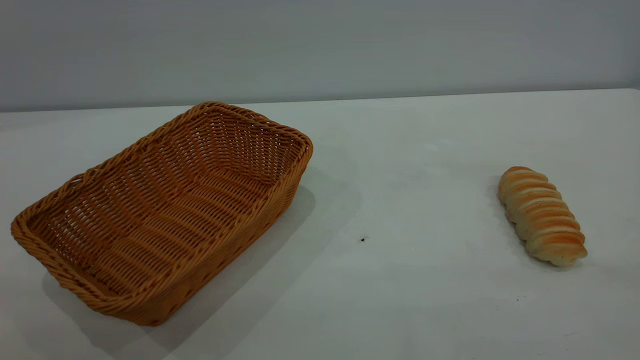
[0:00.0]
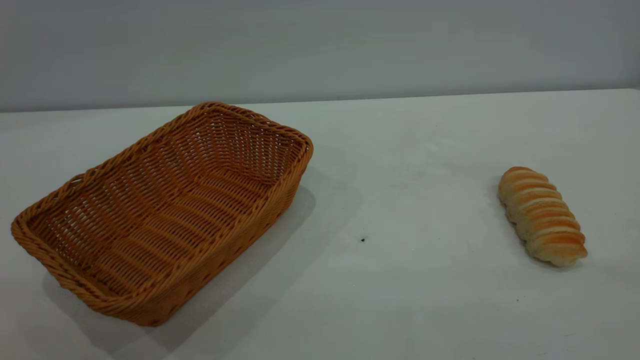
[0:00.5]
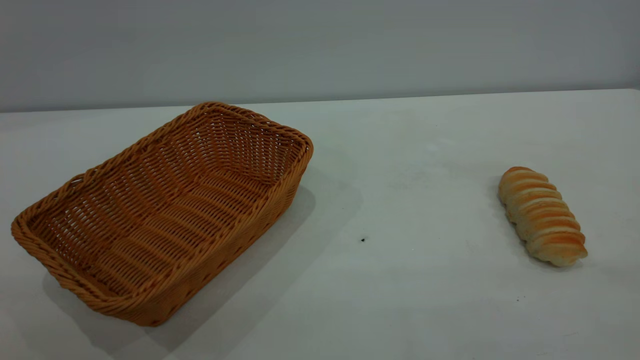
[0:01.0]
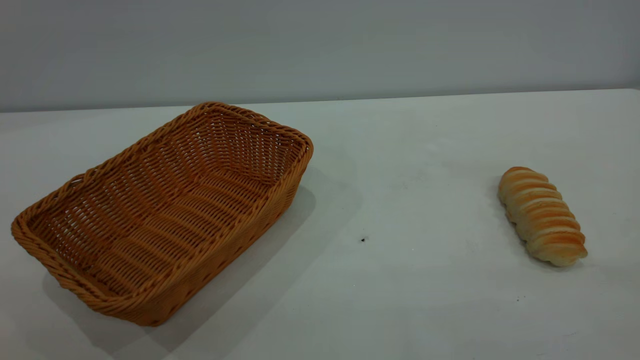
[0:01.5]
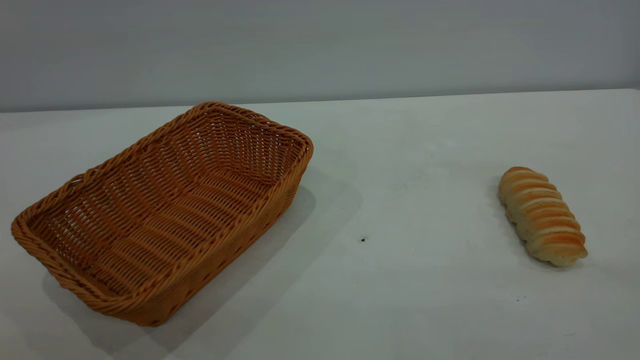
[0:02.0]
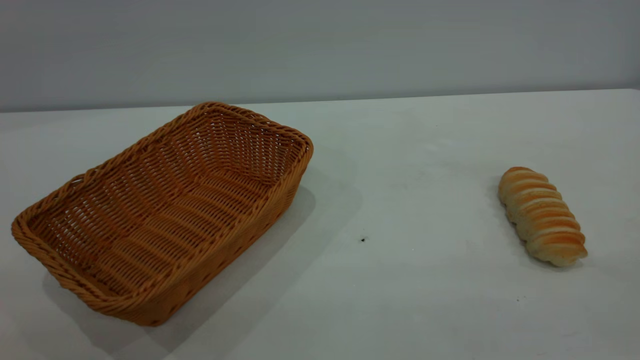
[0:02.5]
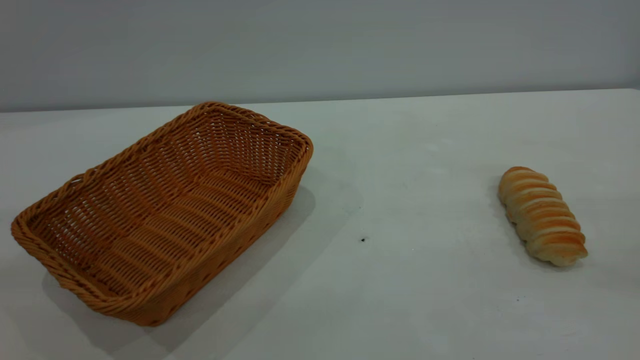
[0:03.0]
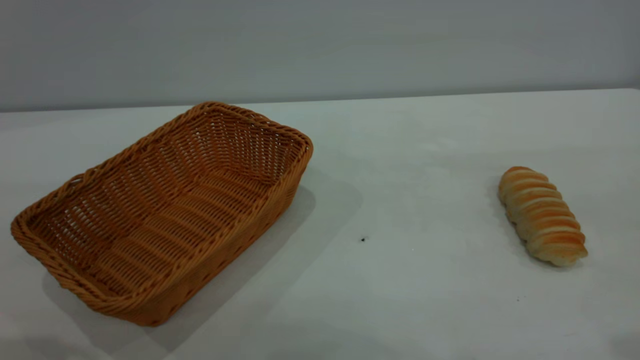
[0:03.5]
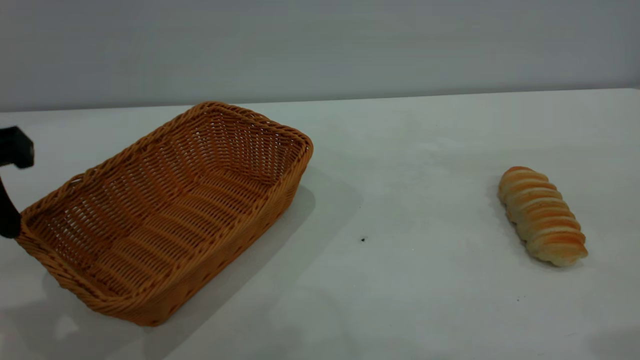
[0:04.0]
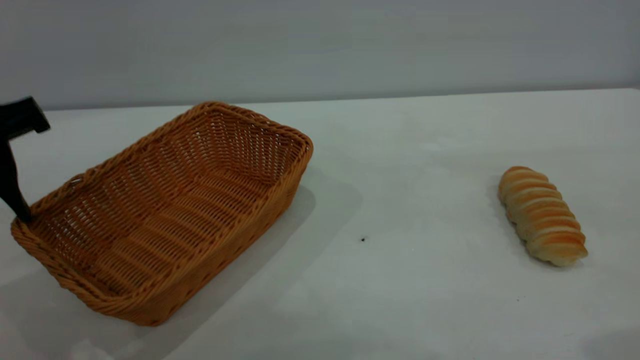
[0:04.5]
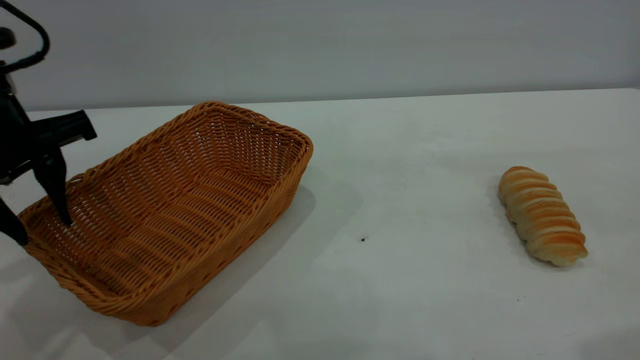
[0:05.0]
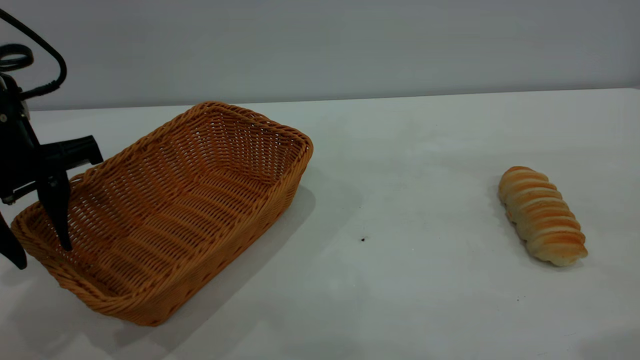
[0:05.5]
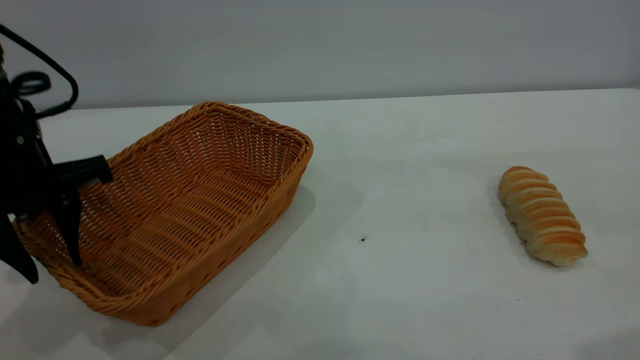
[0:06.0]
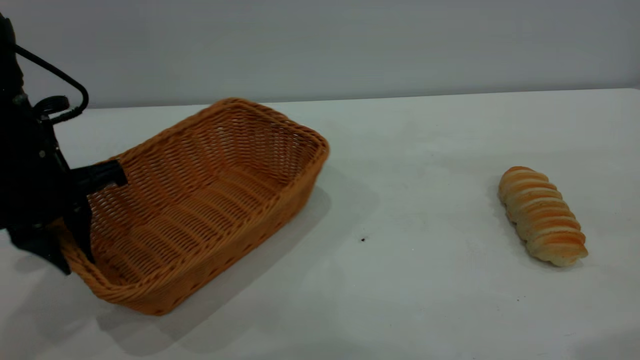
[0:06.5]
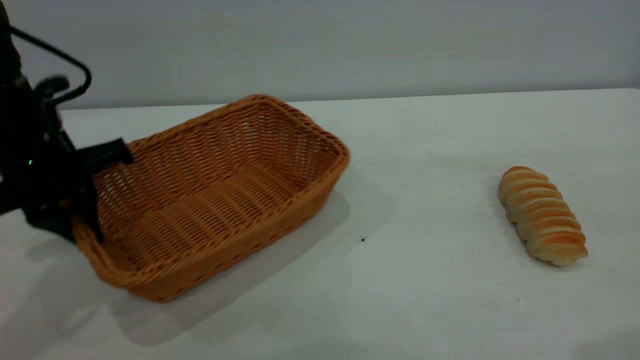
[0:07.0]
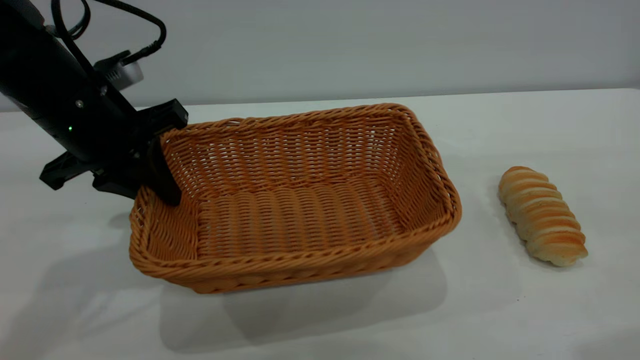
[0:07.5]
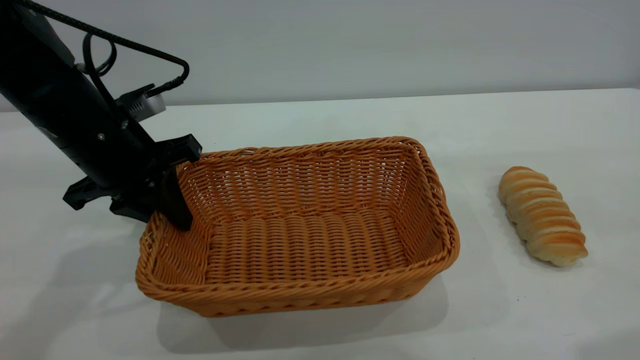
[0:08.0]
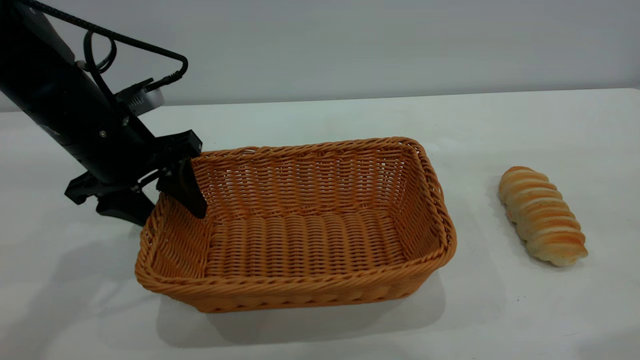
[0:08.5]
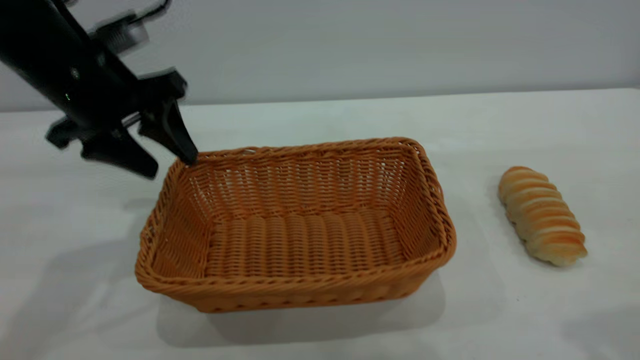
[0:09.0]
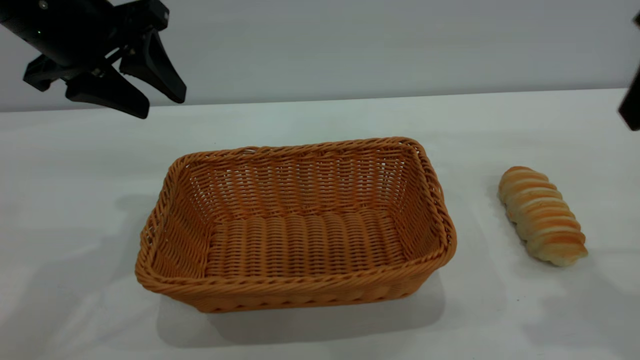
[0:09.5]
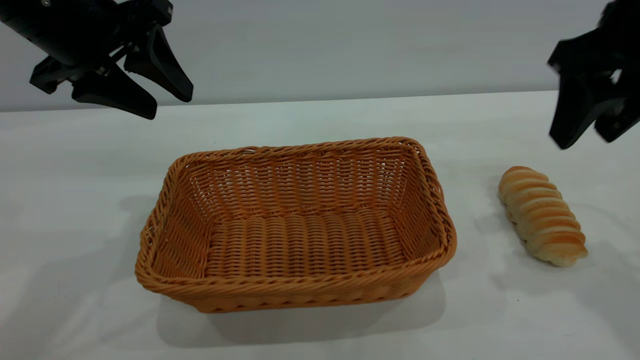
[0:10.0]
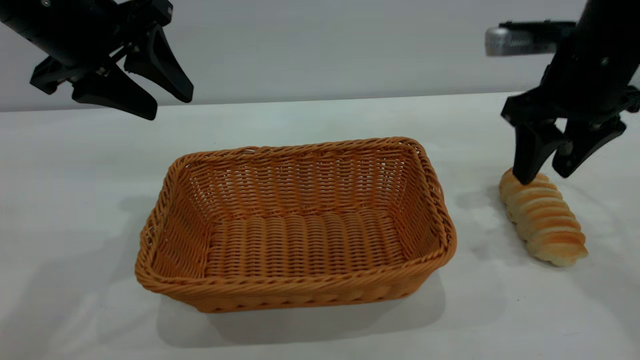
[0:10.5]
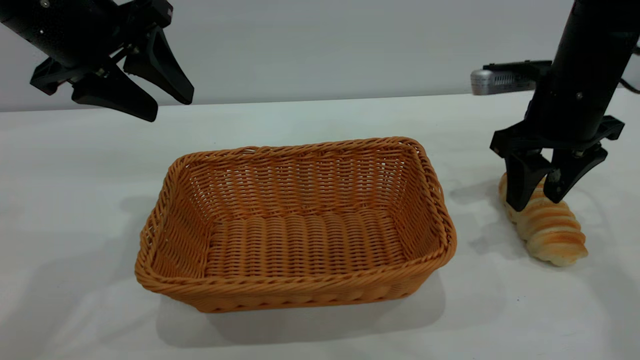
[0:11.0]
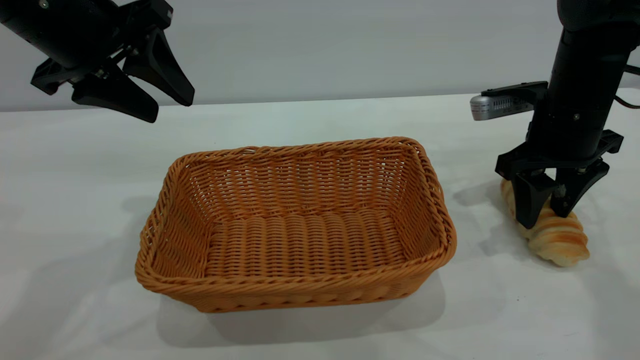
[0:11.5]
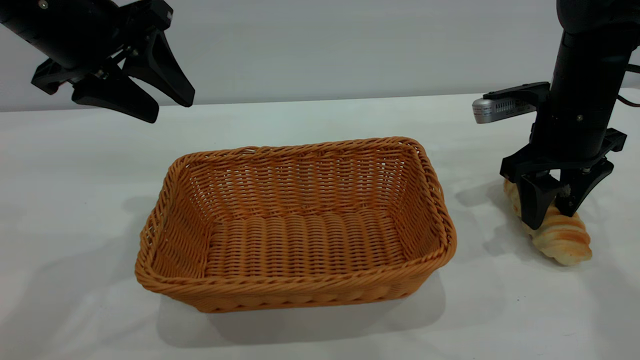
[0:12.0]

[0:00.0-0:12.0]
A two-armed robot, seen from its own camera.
Task of the whole recording: One hand grasps the yellow basket and places it in the middle of the table, while the other hand picks up the long bread and puts it into the yellow basket.
Step, 0:00.0 to 0:09.0: Move the basket to the center of view.
0:02.0 to 0:04.0: The left gripper shifts approximately 25 cm forward and downward.
0:04.0 to 0:06.0: The left gripper heads forward and downward, covering about 10 cm.
0:06.0 to 0:08.0: The left gripper moves some 5 cm, and closes its fingers.
0:08.0 to 0:10.0: The left gripper travels upward by some 10 cm, and opens its fingers, while the right gripper shifts roughly 20 cm forward and downward.
0:10.0 to 0:12.0: The right gripper is displaced downward and forward by some 15 cm.

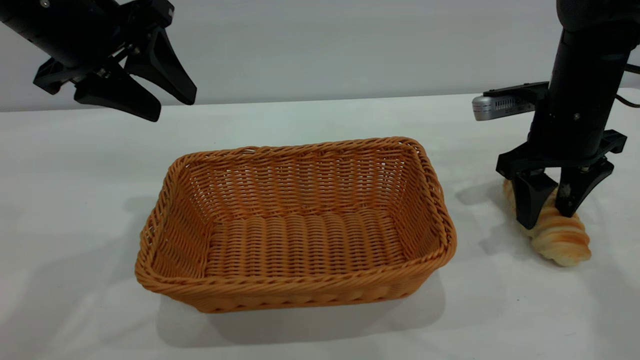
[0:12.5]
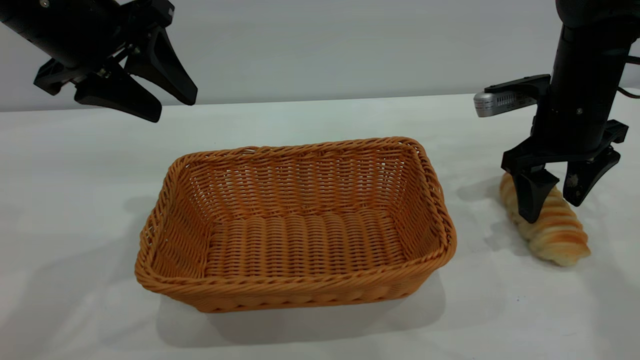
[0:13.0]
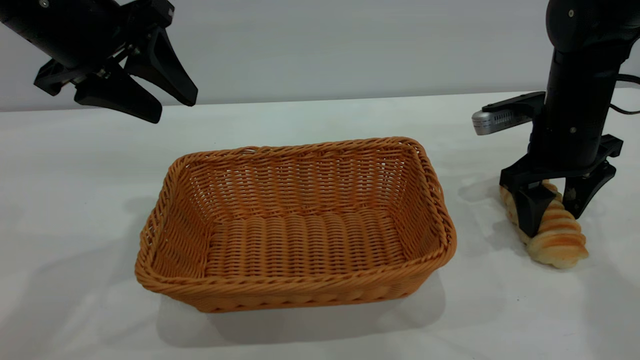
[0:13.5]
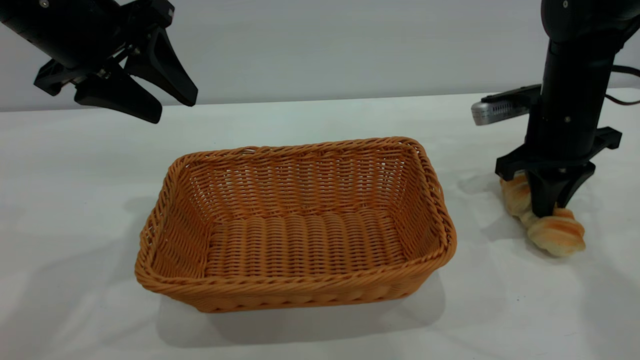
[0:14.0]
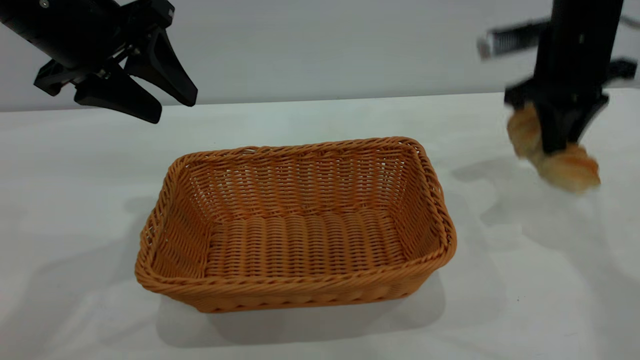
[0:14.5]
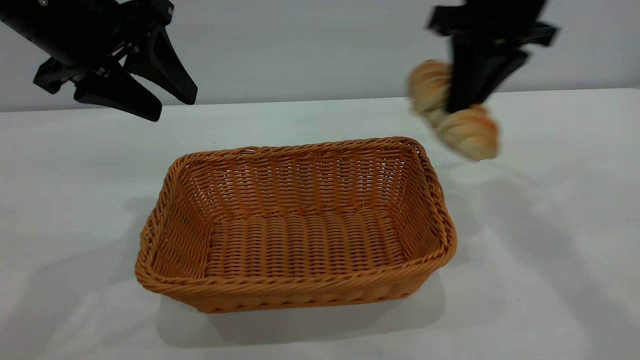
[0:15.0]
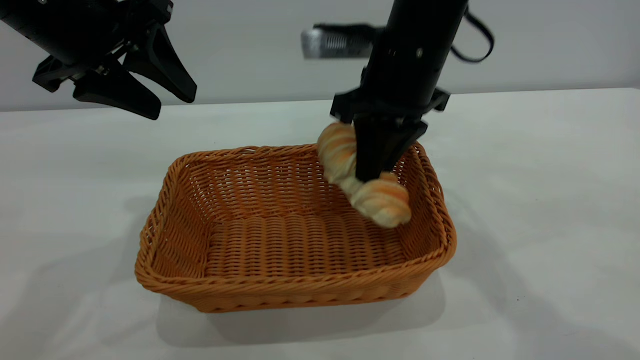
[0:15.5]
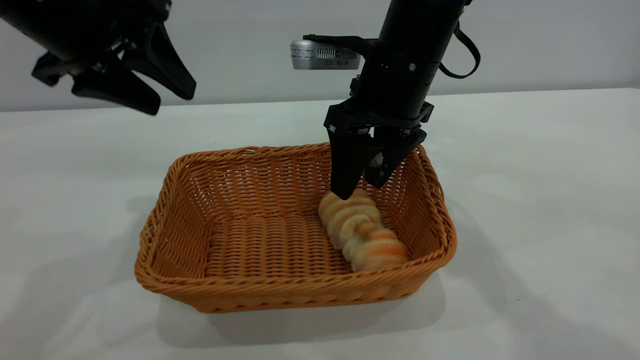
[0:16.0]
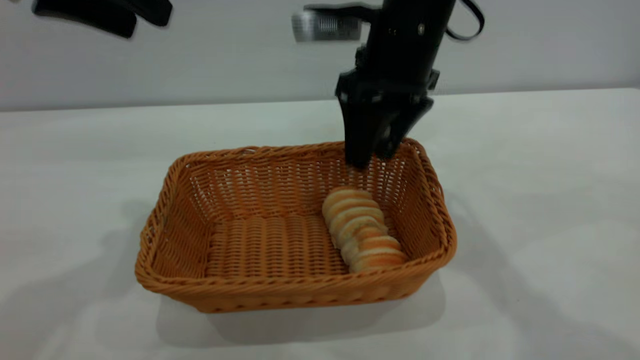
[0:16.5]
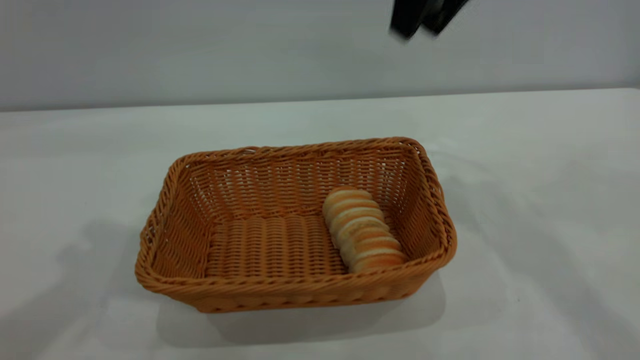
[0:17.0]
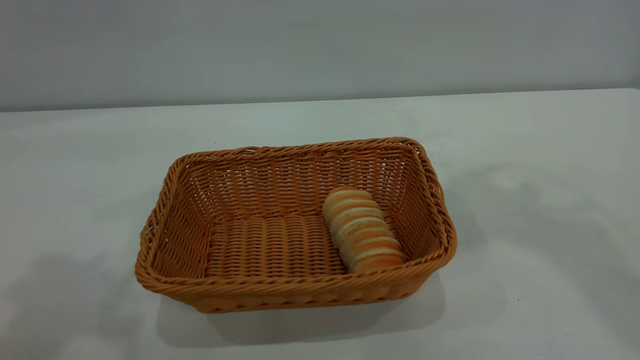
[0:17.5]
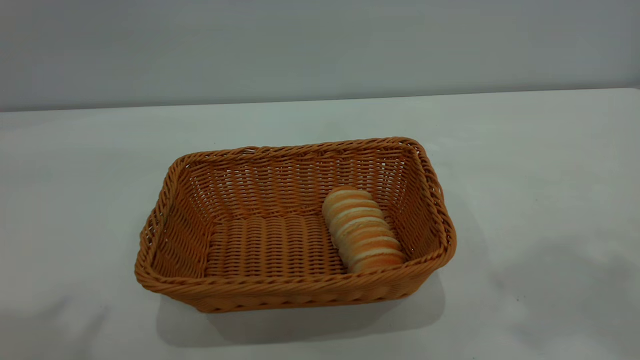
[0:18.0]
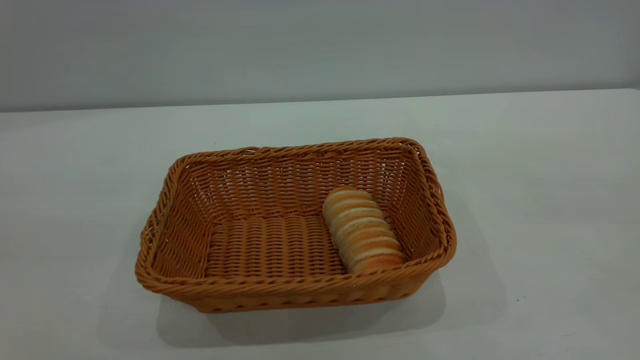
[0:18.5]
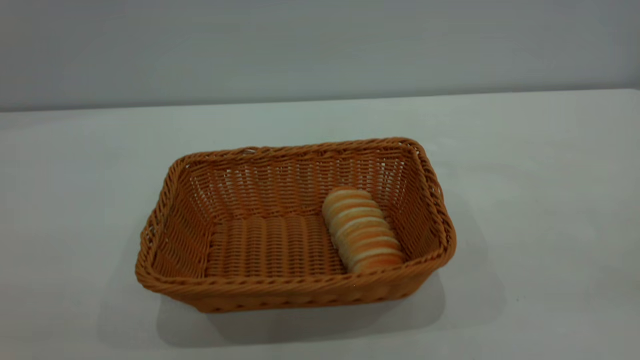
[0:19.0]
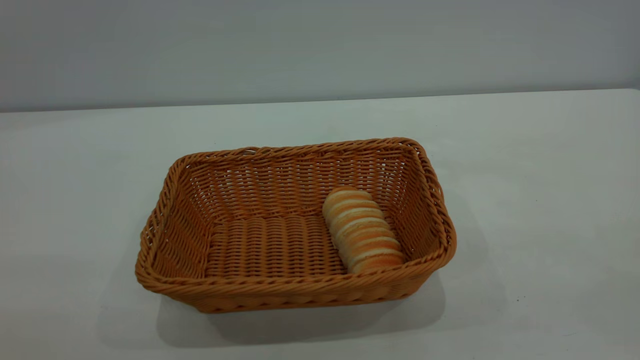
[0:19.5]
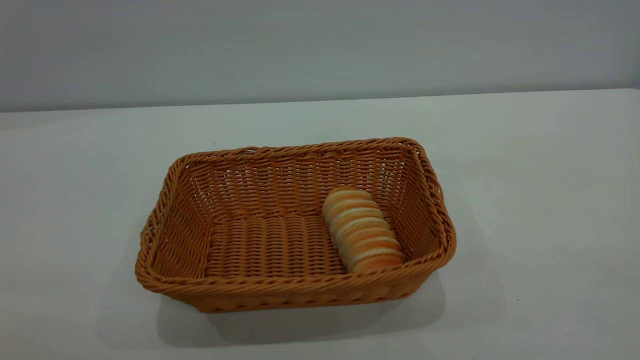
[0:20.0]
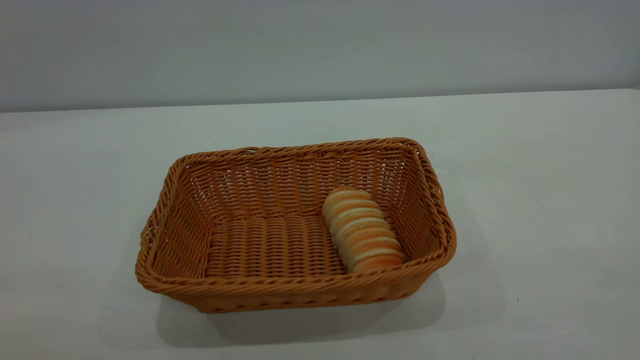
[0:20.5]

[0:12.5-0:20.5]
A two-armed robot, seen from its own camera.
Task of the whole recording: One hand grasps the yellow basket and places it in the middle of the table, while the other hand picks up the long bread and puts it into the yellow basket.
Step, 0:15.0 to 0:16.5: place the bread into the basket.
0:12.5 to 0:14.5: The right gripper is displaced upward by some 5 cm, and closes up.
0:14.5 to 0:16.5: The left gripper shifts some 5 cm upward; the right gripper goes approximately 15 cm to the left, and opens up.
0:16.5 to 0:18.5: The right gripper heads backward, upward and to the right, covering approximately 50 cm; the left gripper heads backward, covering roughly 25 cm.
